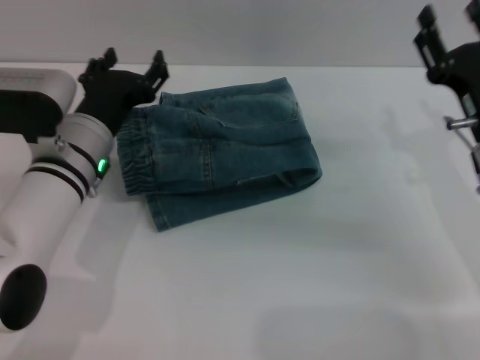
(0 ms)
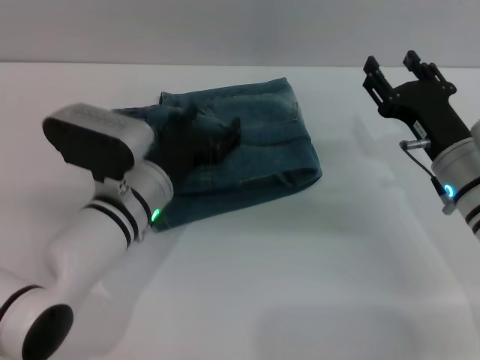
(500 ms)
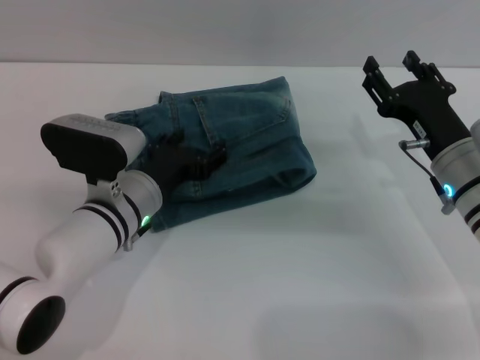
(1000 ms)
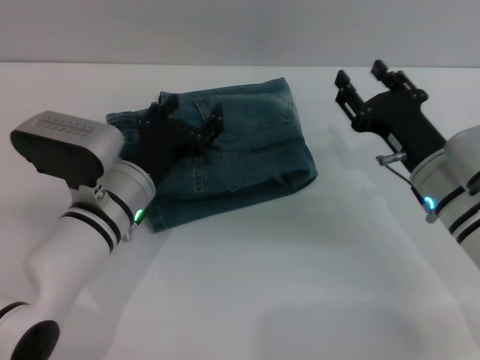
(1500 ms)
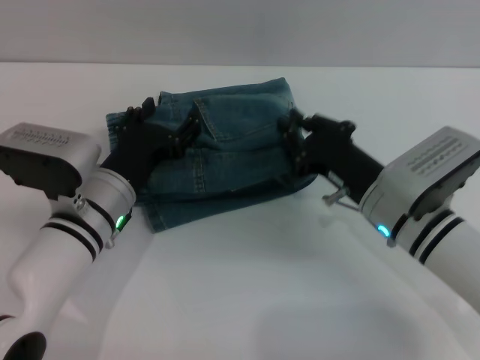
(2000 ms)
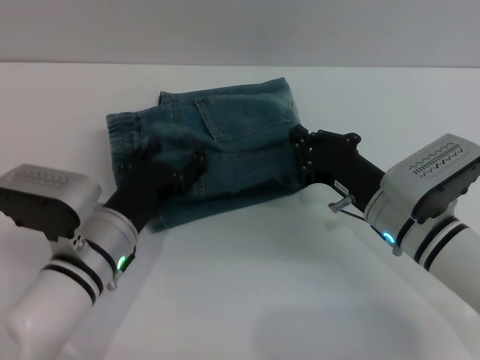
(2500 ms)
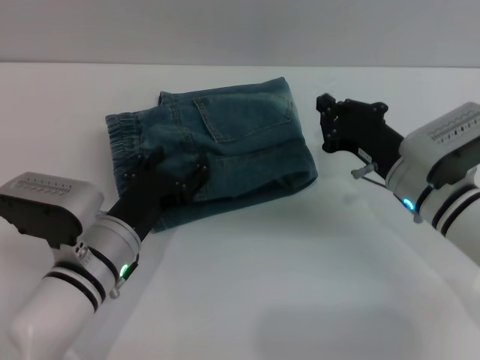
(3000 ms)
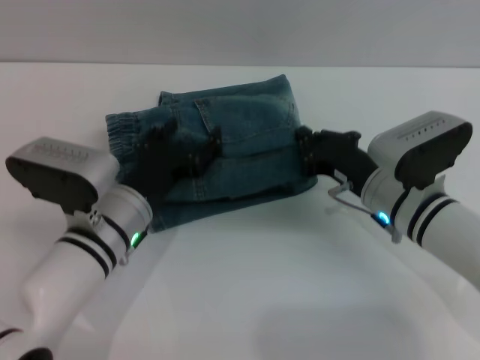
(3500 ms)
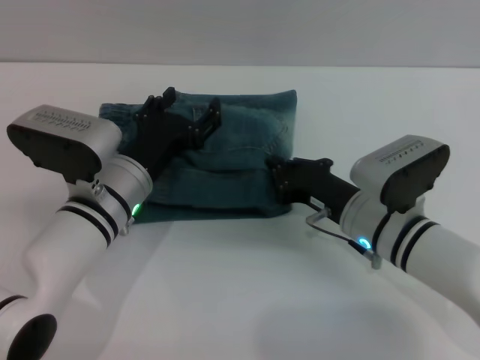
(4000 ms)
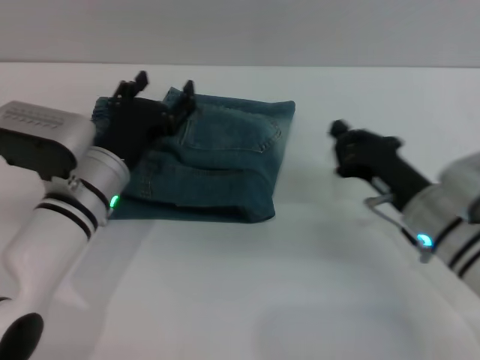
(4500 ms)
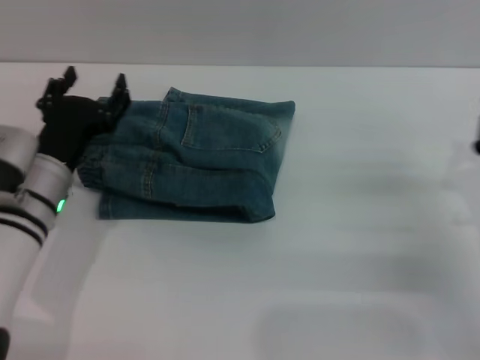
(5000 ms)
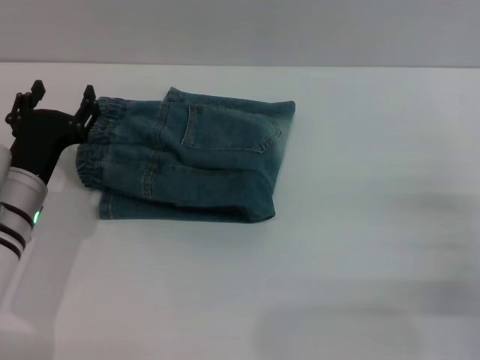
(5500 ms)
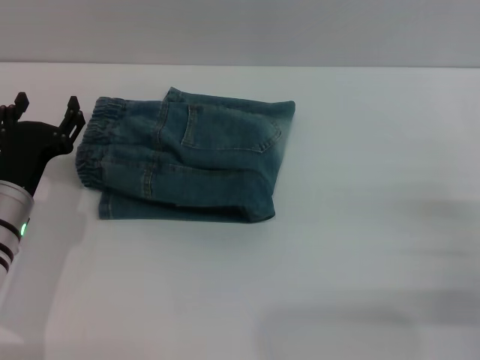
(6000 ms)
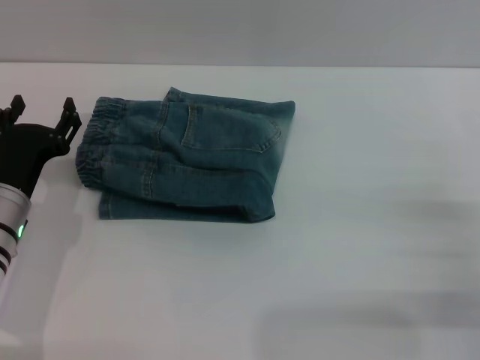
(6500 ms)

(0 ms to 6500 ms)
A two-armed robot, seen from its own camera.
0 ms - 2000 ms: The right gripper moves to the left, some 10 cm, and closes its fingers, while the left gripper shifts by some 5 cm.
4500 ms - 6500 ms: The left gripper heads to the left, covering about 10 cm; the right gripper is displaced to the right and backward by approximately 15 cm, and opens up.

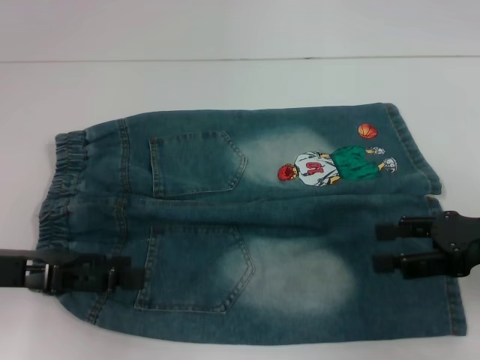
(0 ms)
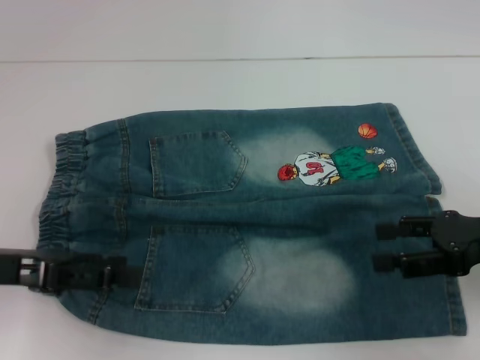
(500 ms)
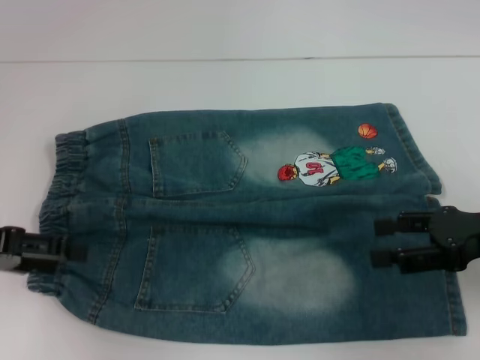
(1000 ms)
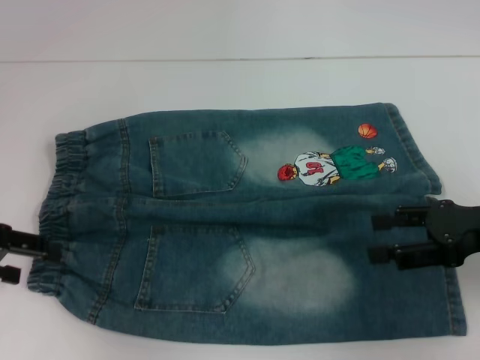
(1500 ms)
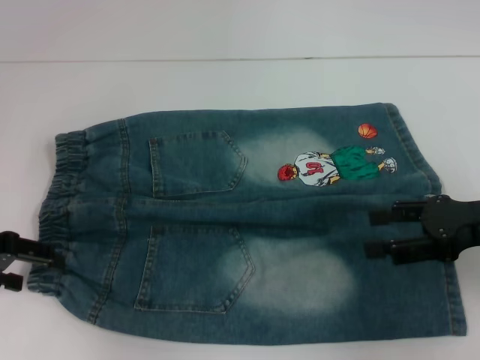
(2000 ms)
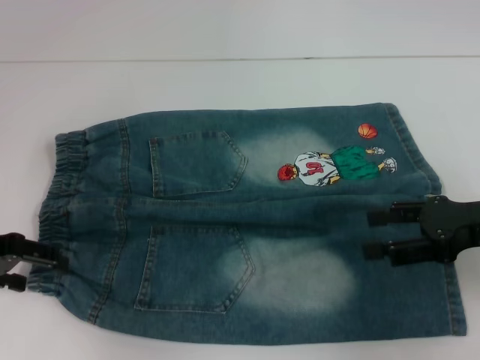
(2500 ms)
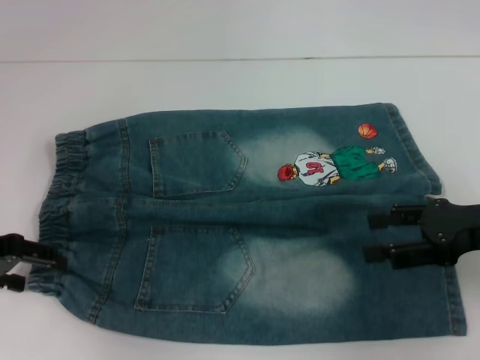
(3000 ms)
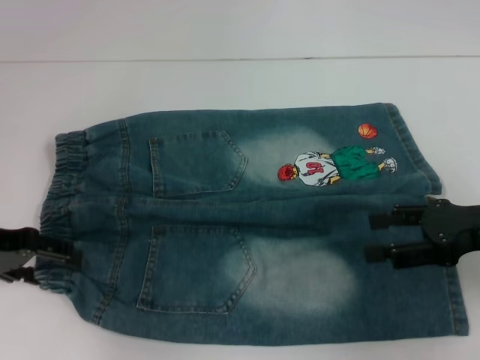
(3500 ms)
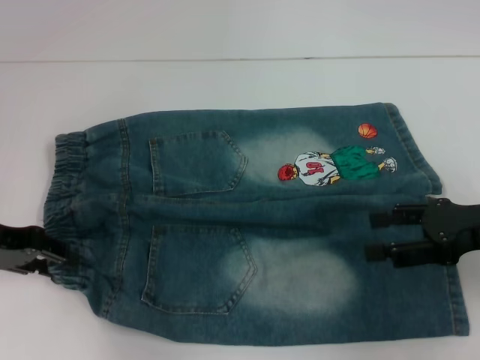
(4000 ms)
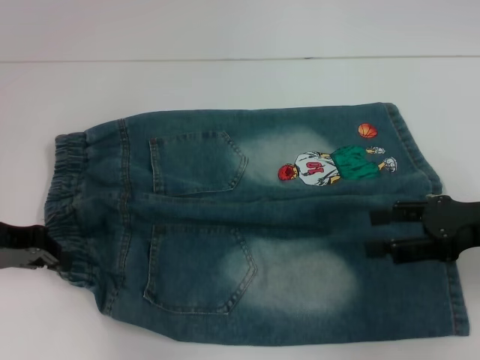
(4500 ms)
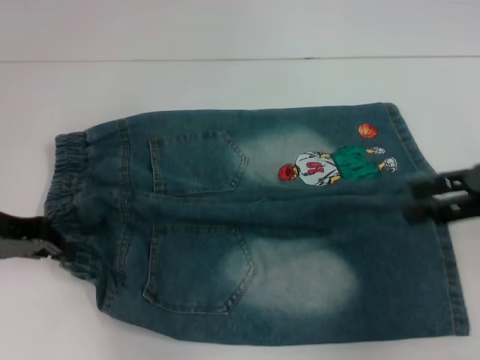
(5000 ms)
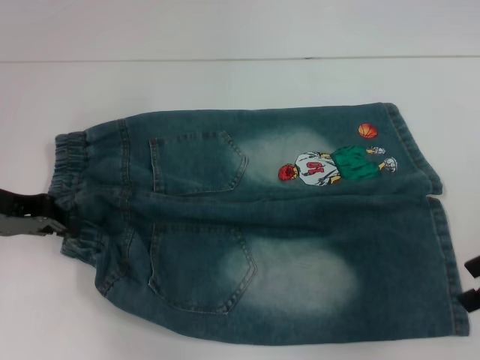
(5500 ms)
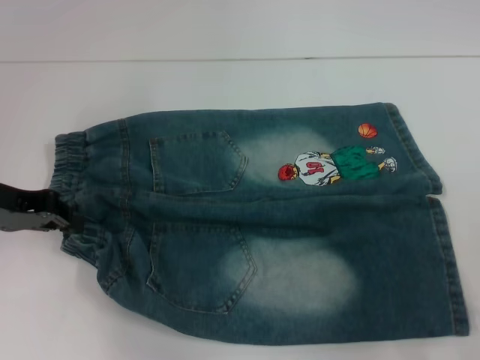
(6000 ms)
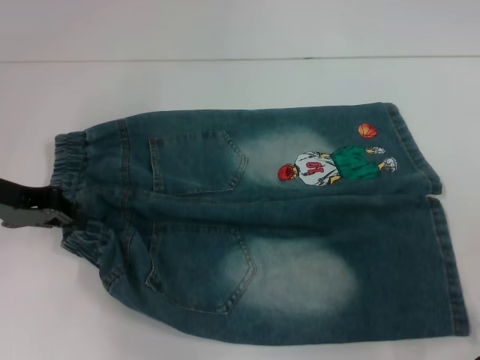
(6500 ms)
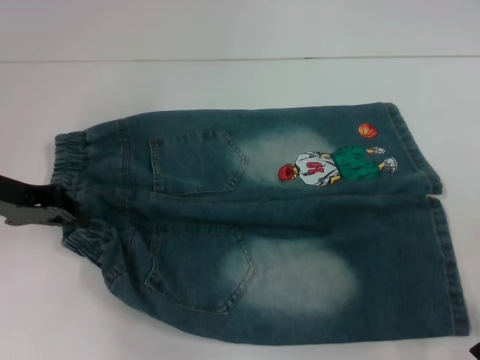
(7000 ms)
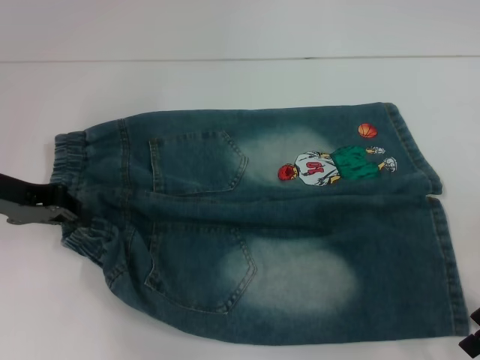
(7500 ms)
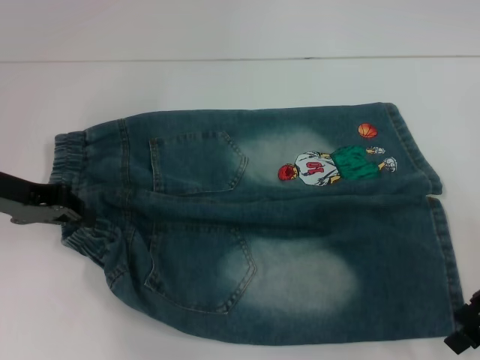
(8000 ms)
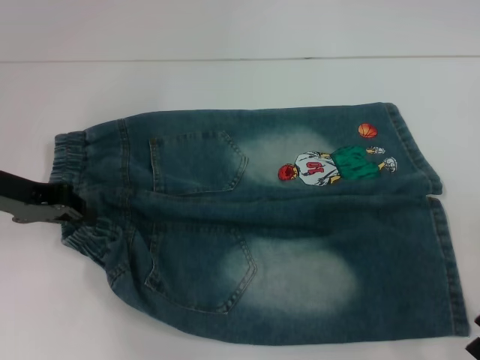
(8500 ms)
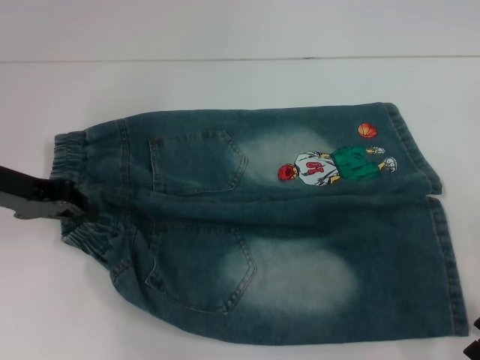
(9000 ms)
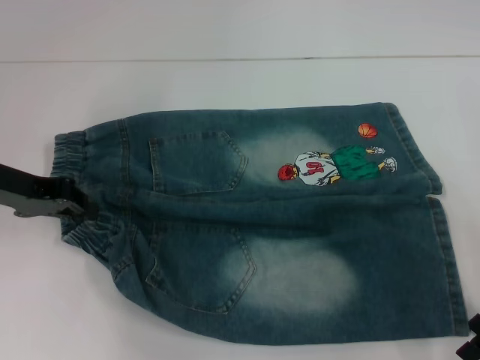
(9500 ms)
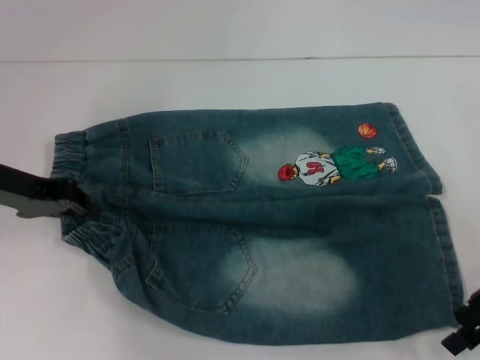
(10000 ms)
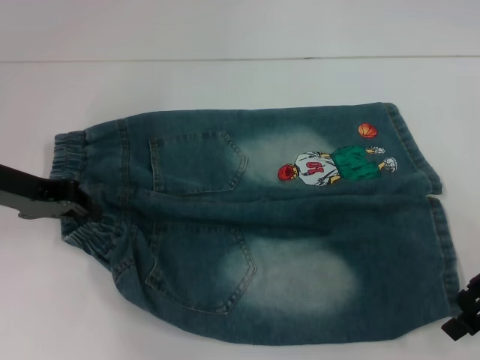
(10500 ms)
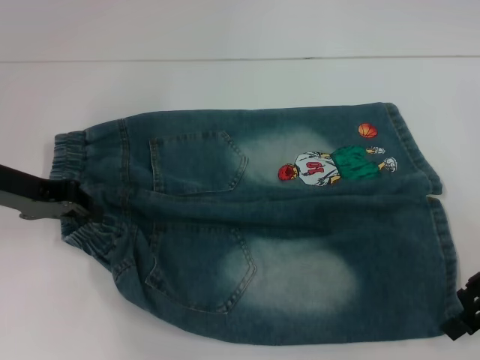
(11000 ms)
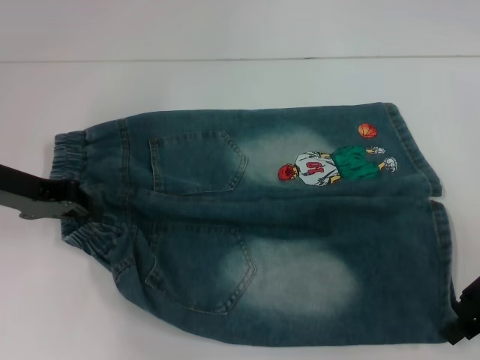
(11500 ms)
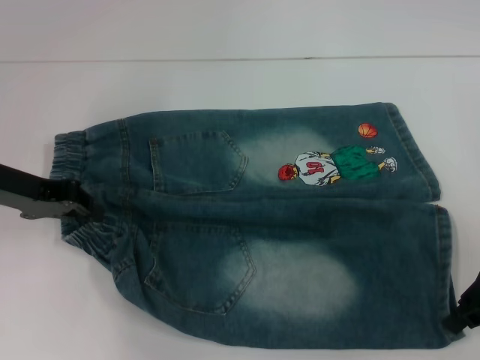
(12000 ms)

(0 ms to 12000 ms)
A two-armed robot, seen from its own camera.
Step, 0 ms - 4000 ms: Hold the lower left waistband with your left hand.
Step, 4500 ms - 11500 ms: Grab the lower right pant leg with your right hand.
0 ms - 2000 ms: The left gripper changes place by about 5 cm.
2000 ms - 4000 ms: The left gripper closes its fingers.
4000 ms - 6000 ms: The left gripper closes its fingers.
6000 ms - 8000 ms: There are only small adjustments of the grippers.
8000 ms - 10000 ms: The two grippers keep their place.
10000 ms - 12000 ms: The right gripper closes up.

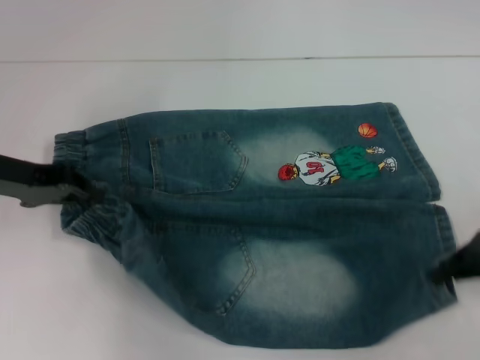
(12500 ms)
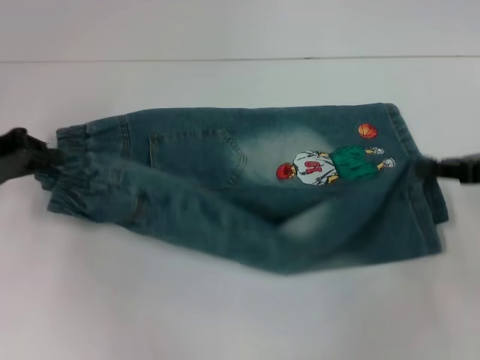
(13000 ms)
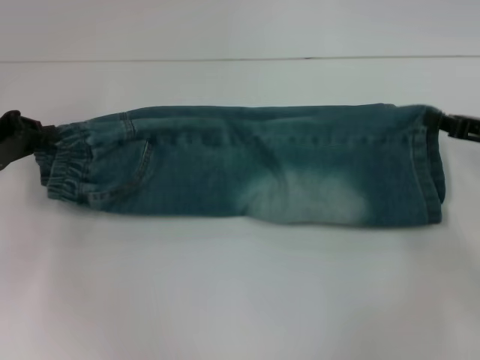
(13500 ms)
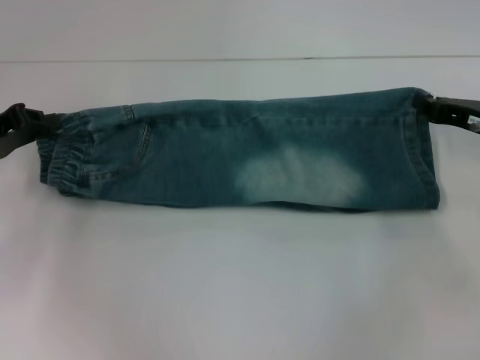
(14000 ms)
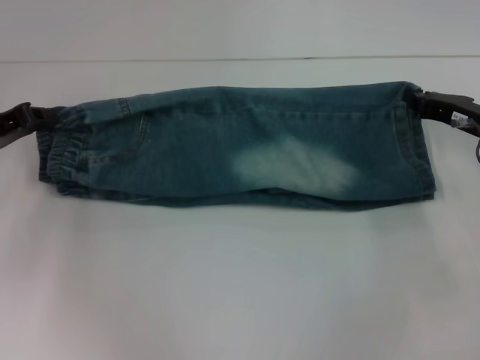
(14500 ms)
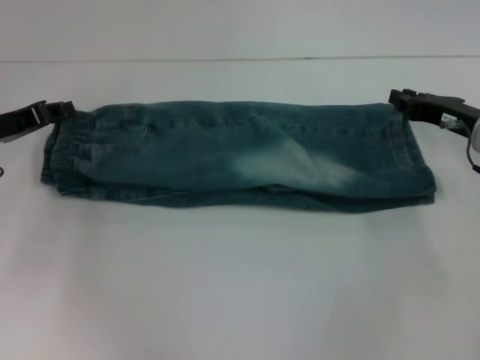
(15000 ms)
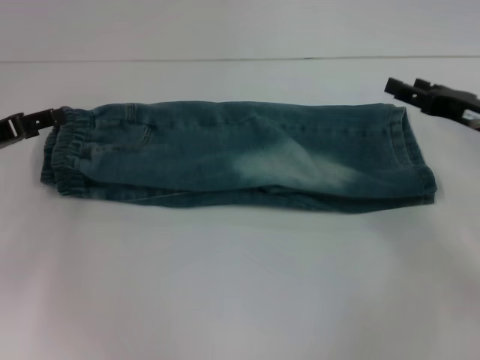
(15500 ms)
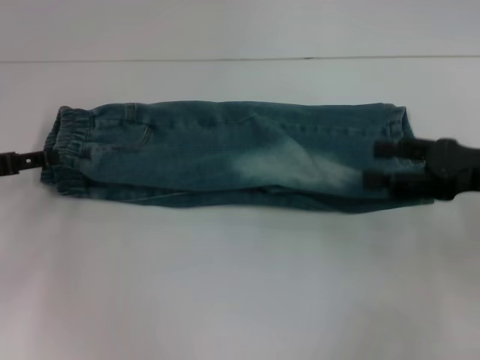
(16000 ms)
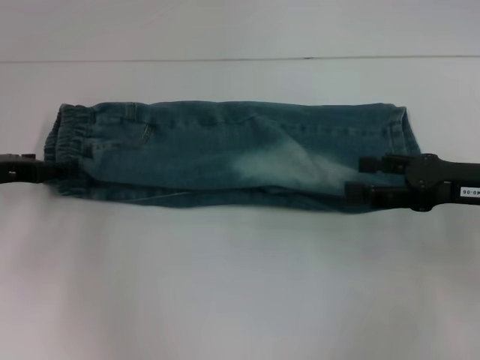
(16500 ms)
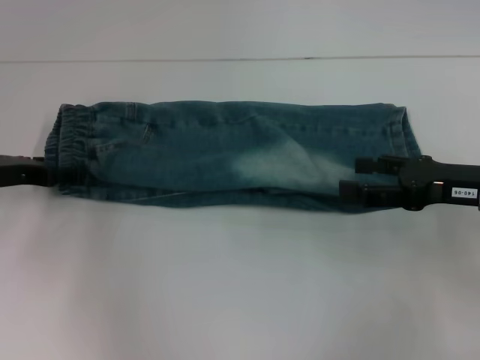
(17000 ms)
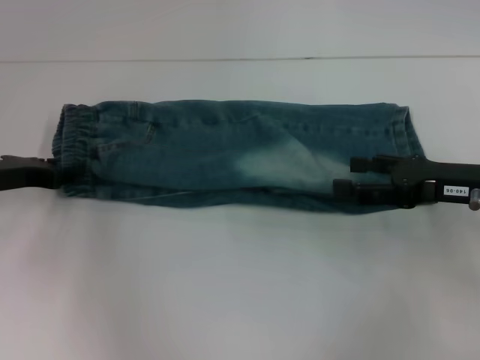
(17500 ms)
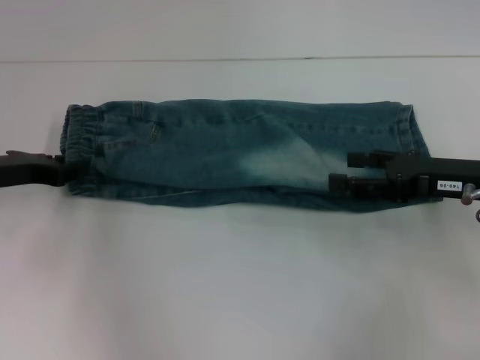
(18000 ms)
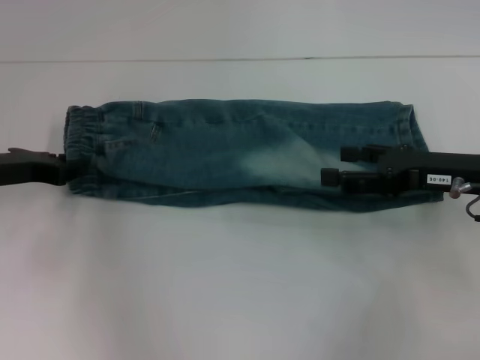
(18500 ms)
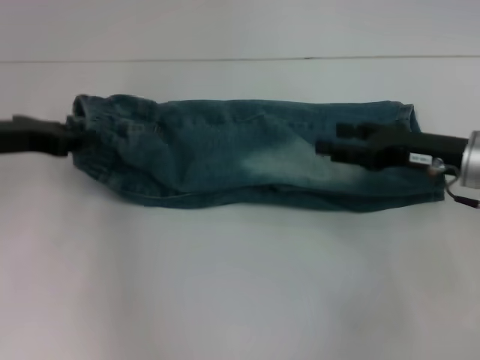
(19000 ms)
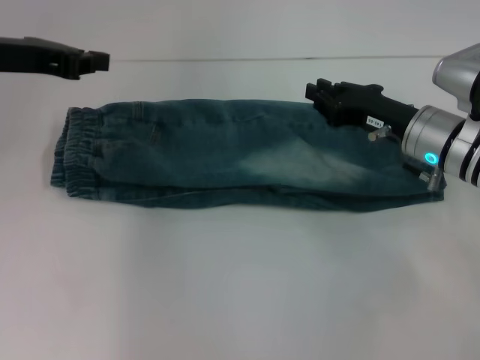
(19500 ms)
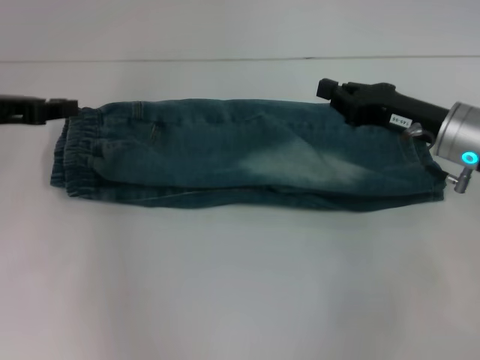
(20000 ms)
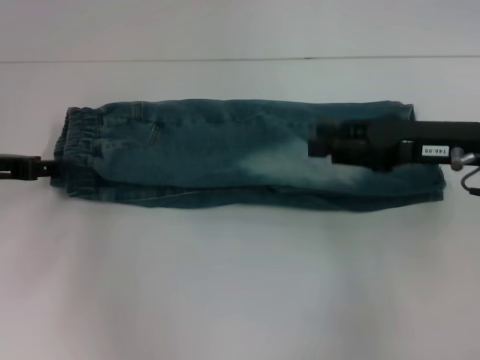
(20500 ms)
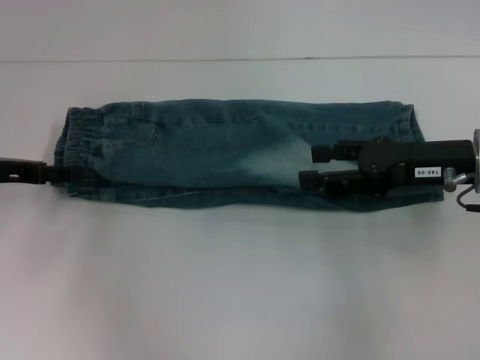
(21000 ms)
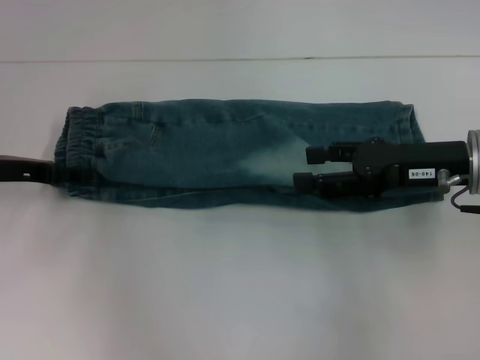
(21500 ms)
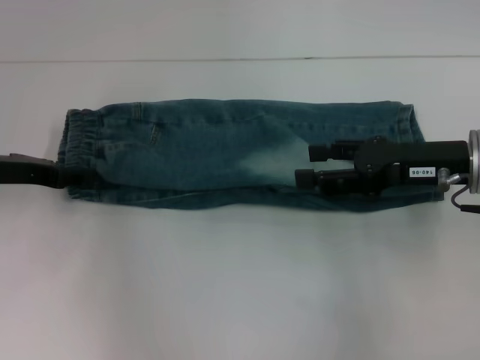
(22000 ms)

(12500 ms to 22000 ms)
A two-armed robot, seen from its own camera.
Step, 12500 ms - 15000 ms: Fold upward with your right hand.
12500 ms - 14500 ms: The right gripper shifts roughly 10 cm forward and downward.
14500 ms - 16500 ms: The right gripper heads backward, covering roughly 5 cm, and opens its fingers, while the left gripper opens up.
16500 ms - 18000 ms: The left gripper closes up.
18000 ms - 20000 ms: The left gripper goes some 10 cm upward, and closes its fingers; the right gripper closes.
20000 ms - 22000 ms: The left gripper shifts approximately 5 cm downward, and opens up; the right gripper opens.
